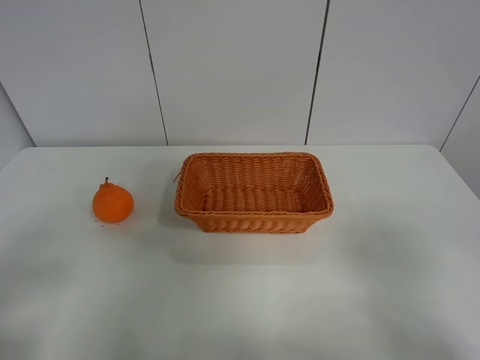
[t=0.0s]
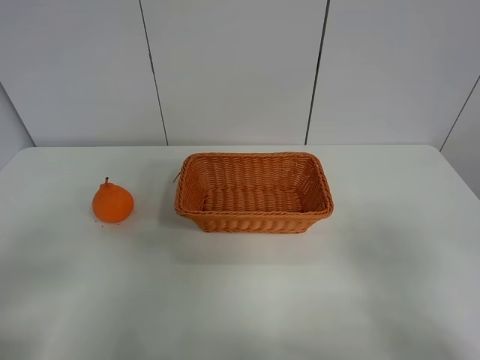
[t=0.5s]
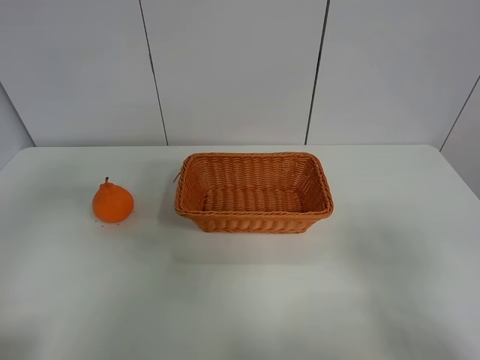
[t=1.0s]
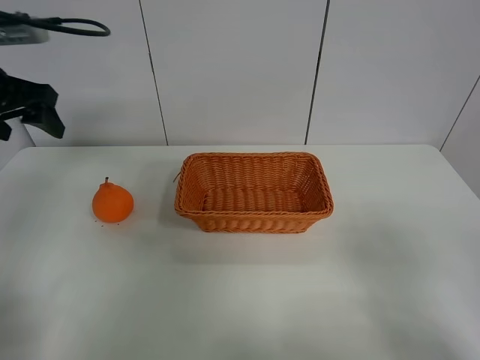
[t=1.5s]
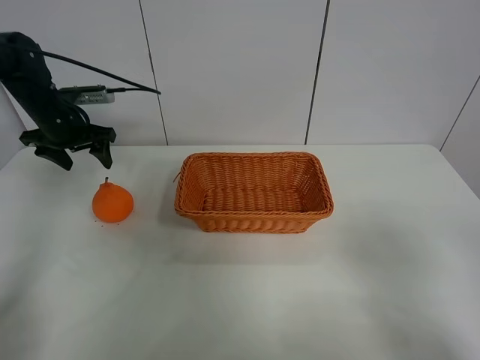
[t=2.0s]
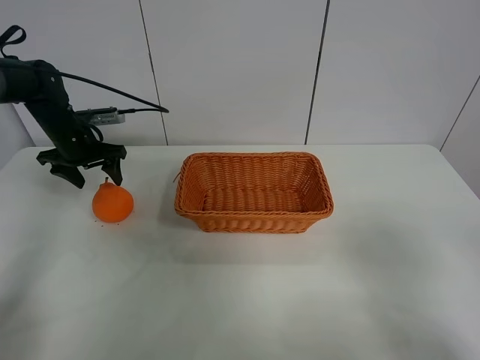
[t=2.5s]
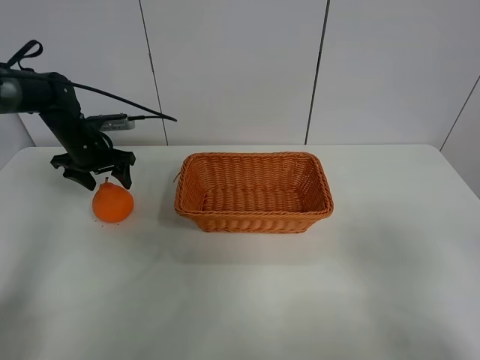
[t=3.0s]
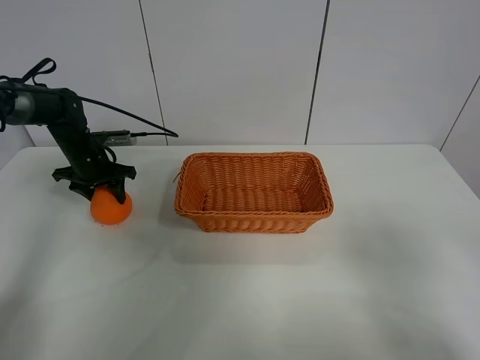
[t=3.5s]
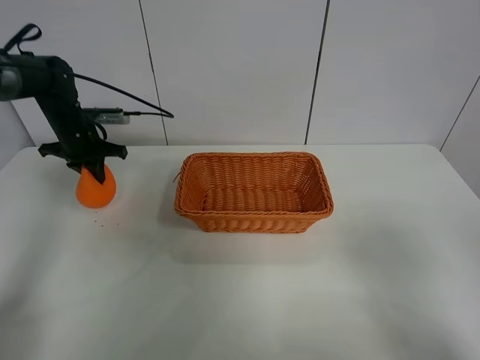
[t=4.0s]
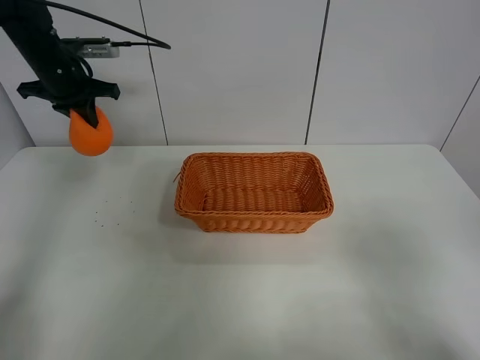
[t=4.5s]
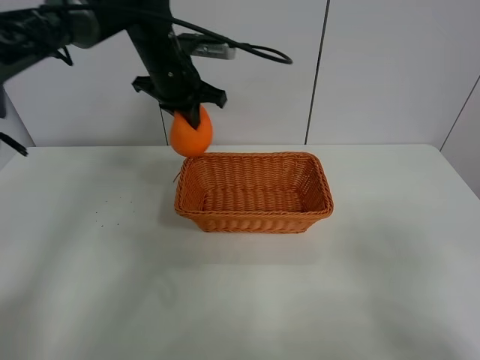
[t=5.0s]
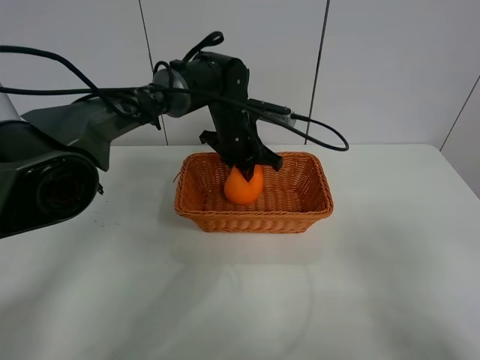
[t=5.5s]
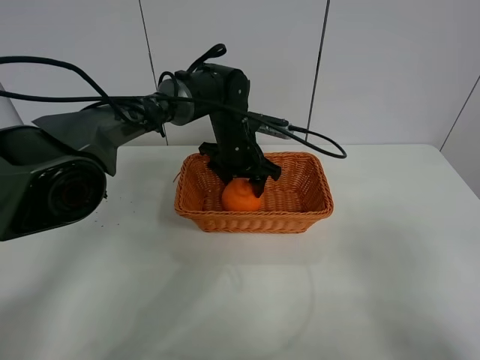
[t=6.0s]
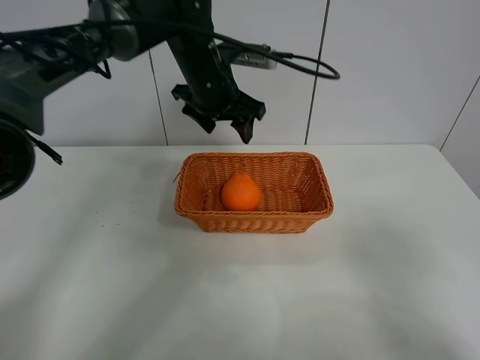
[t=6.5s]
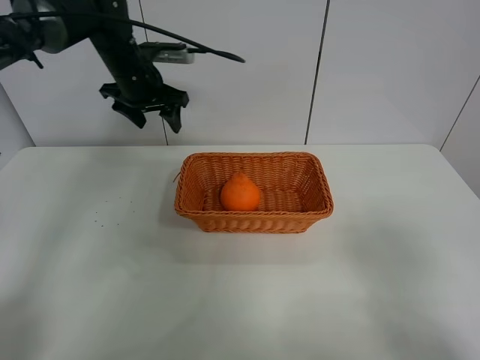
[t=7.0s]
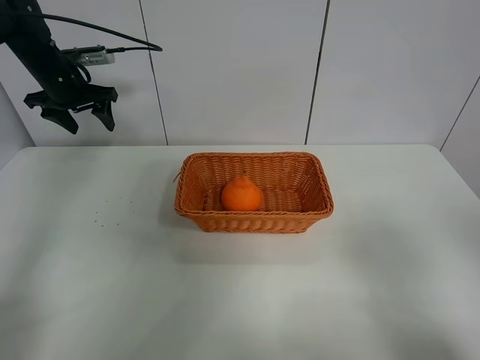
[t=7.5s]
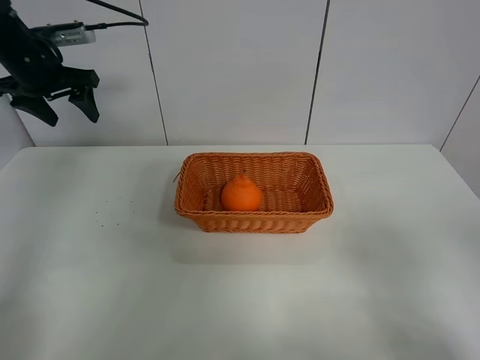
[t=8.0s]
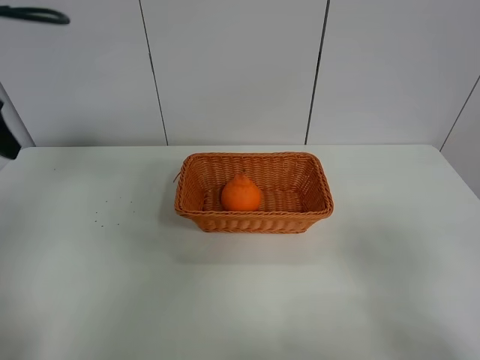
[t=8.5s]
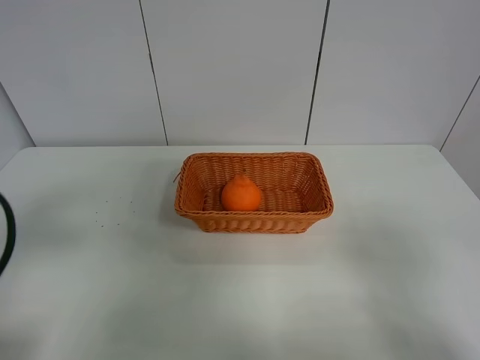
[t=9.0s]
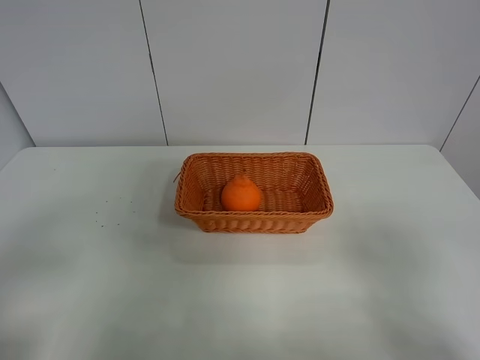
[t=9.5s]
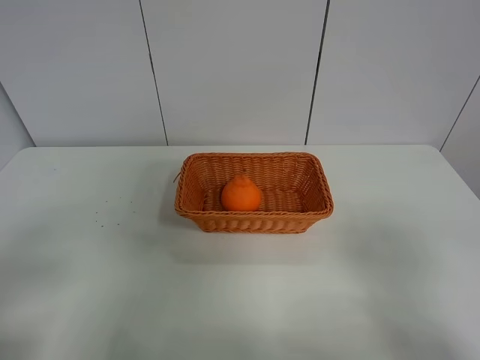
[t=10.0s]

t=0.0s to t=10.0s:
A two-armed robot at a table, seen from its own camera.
Task of the whole recording: left gripper grabs oranges and puts them in the basket.
Step, t=0.0s to t=3.5s: Grasp the orange with left gripper.
Step, t=4.0s to t=7.0s: Place the orange in the basket with left gripper.
t=0.0s to t=2.0s: The left gripper travels forward by roughly 40 cm.
t=2.0s to t=4.0s: The left gripper moves about 10 cm downward and comes back, and closes.
t=4.0s to t=6.0s: The left gripper shifts some 30 cm to the right, and opens its fingers.
t=6.0s to t=8.0s: The left gripper travels to the left and upward by roughly 35 cm.
t=8.0s to t=10.0s: The left gripper travels backward by about 40 cm.
